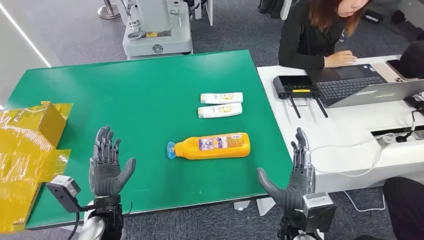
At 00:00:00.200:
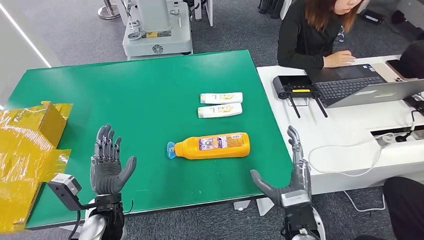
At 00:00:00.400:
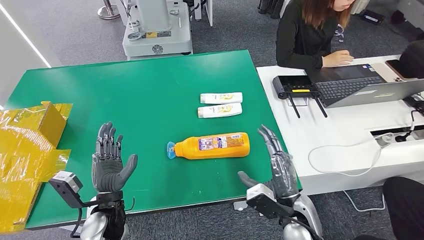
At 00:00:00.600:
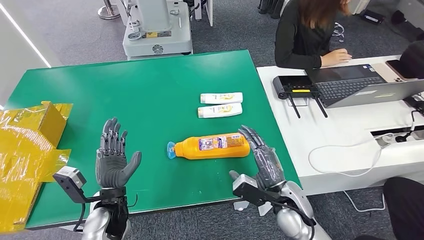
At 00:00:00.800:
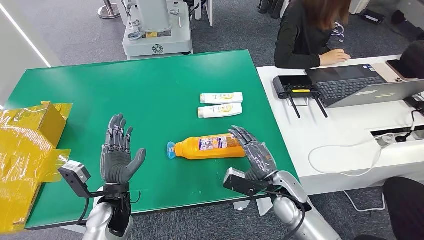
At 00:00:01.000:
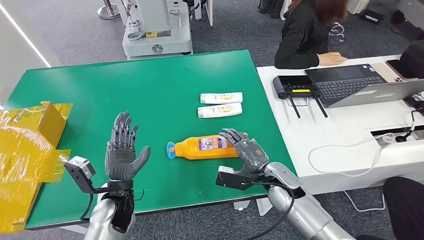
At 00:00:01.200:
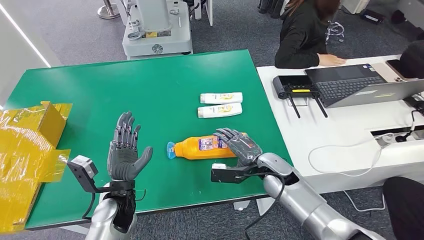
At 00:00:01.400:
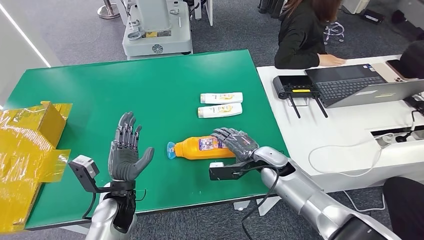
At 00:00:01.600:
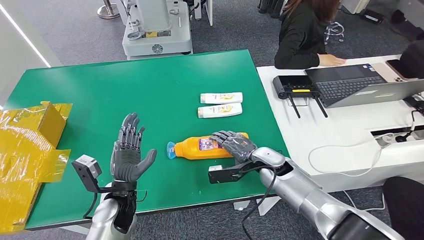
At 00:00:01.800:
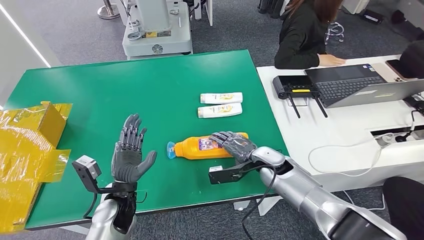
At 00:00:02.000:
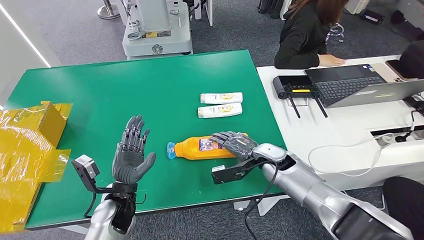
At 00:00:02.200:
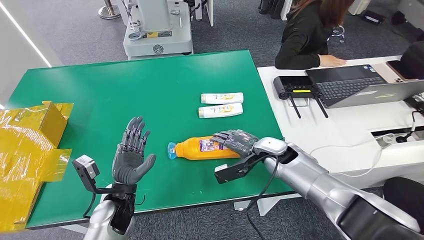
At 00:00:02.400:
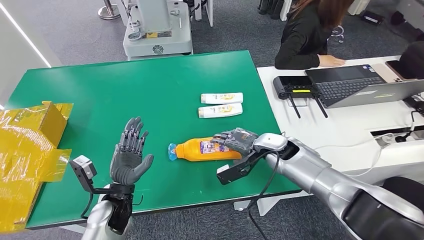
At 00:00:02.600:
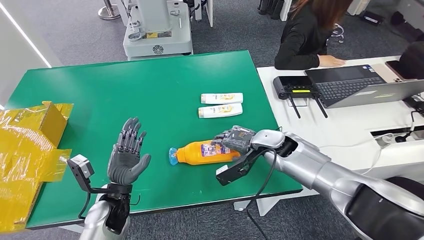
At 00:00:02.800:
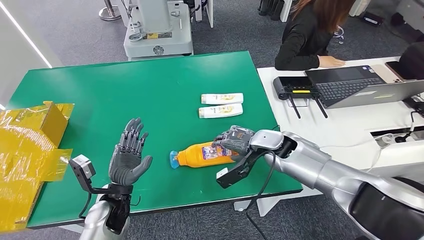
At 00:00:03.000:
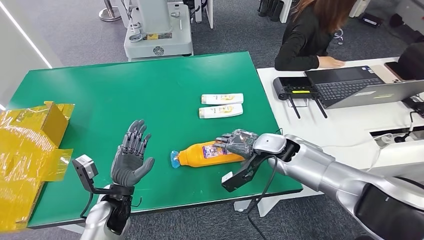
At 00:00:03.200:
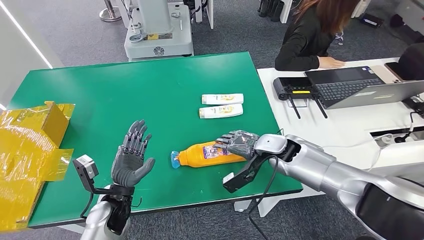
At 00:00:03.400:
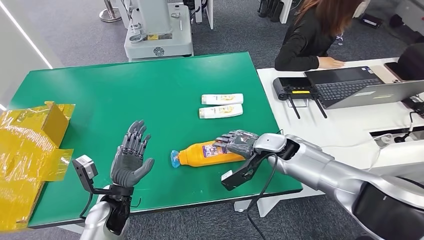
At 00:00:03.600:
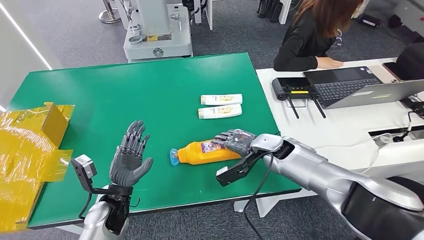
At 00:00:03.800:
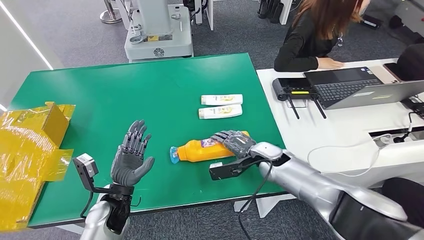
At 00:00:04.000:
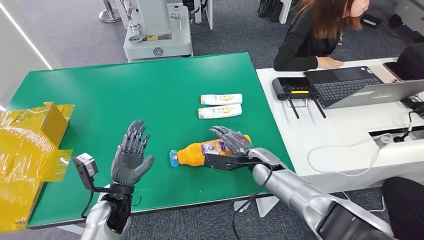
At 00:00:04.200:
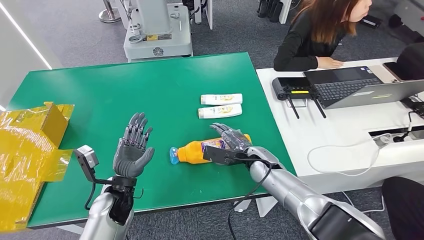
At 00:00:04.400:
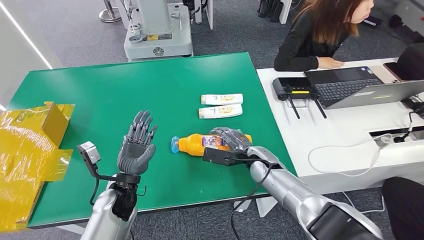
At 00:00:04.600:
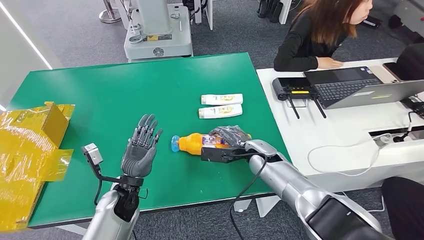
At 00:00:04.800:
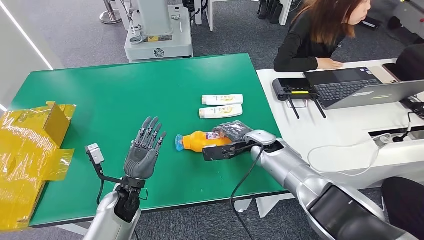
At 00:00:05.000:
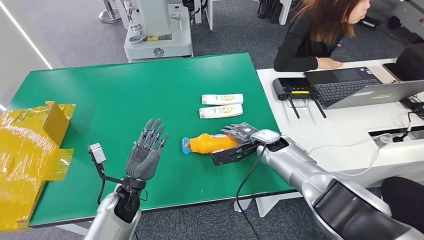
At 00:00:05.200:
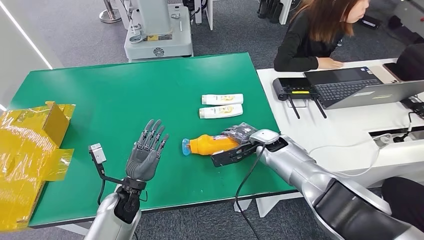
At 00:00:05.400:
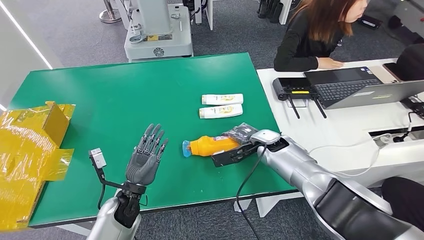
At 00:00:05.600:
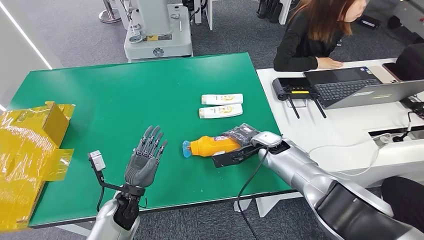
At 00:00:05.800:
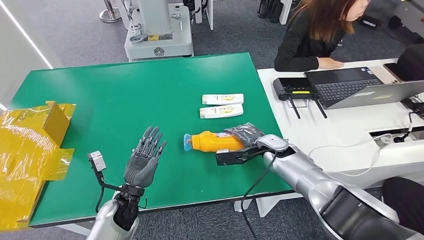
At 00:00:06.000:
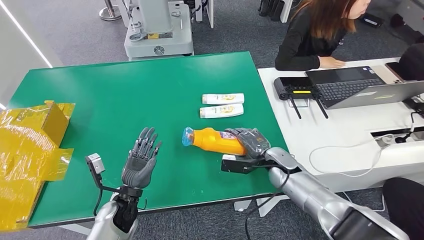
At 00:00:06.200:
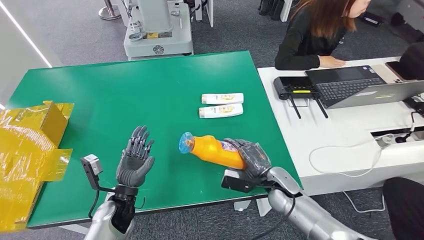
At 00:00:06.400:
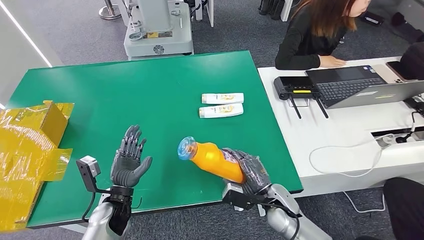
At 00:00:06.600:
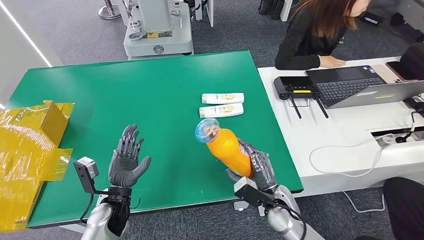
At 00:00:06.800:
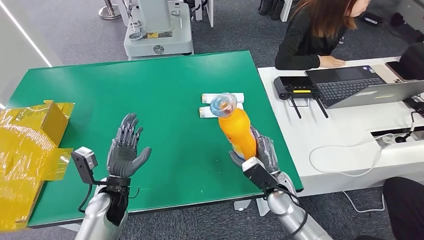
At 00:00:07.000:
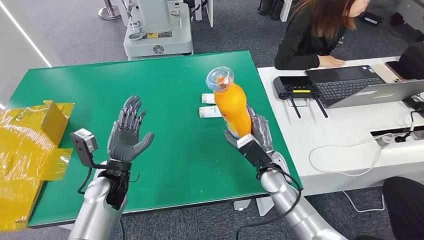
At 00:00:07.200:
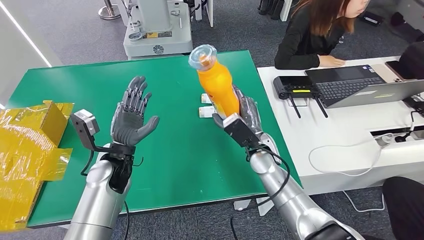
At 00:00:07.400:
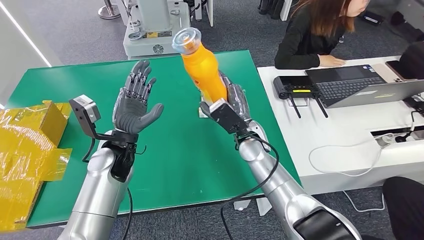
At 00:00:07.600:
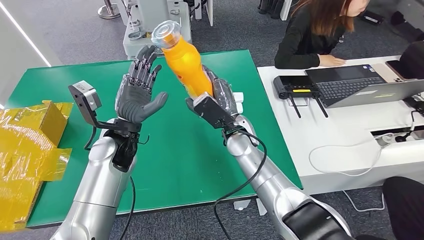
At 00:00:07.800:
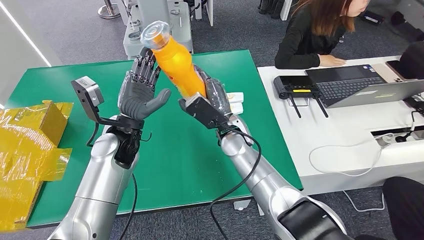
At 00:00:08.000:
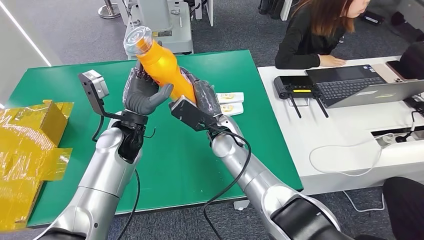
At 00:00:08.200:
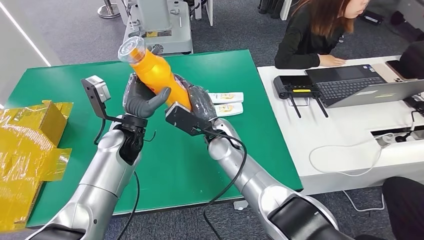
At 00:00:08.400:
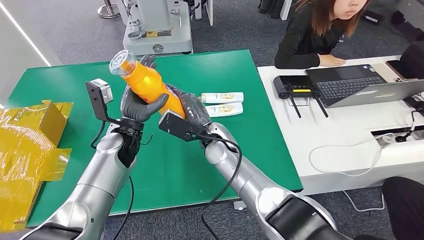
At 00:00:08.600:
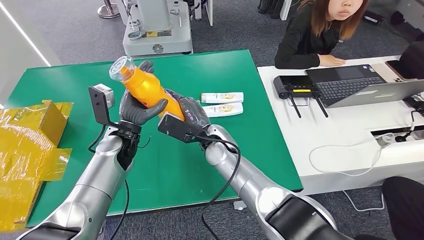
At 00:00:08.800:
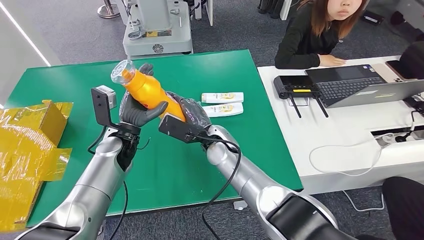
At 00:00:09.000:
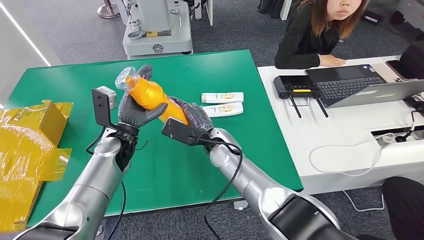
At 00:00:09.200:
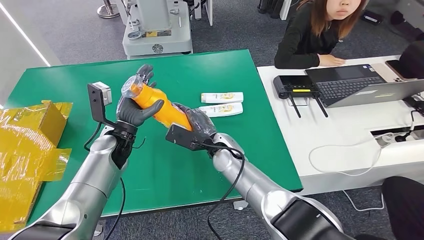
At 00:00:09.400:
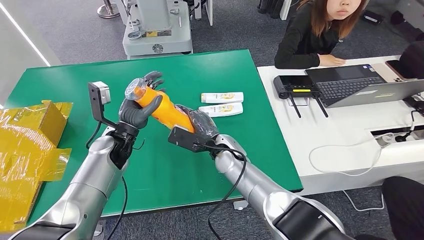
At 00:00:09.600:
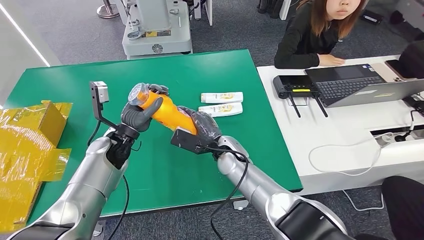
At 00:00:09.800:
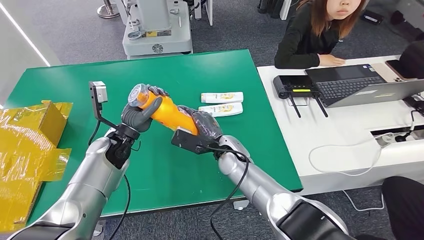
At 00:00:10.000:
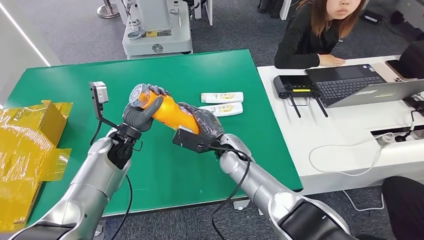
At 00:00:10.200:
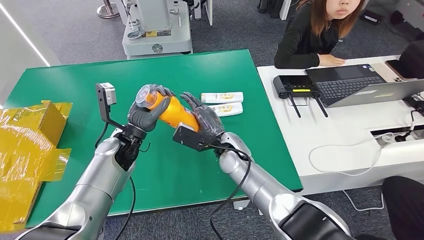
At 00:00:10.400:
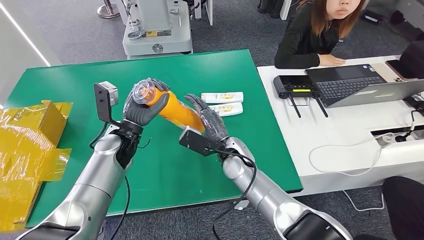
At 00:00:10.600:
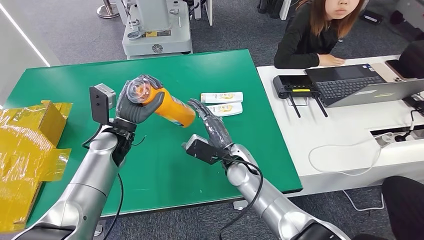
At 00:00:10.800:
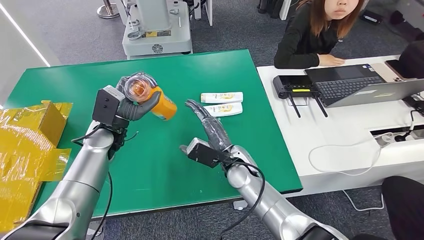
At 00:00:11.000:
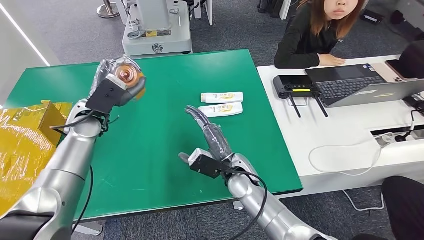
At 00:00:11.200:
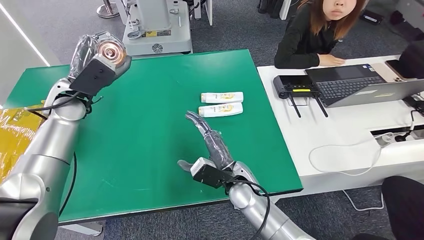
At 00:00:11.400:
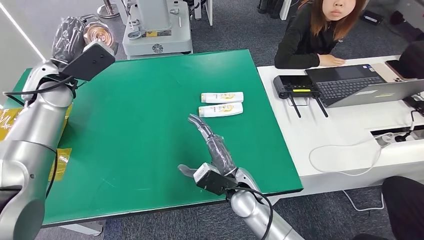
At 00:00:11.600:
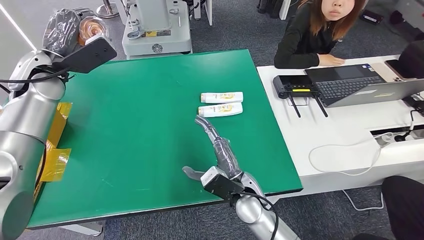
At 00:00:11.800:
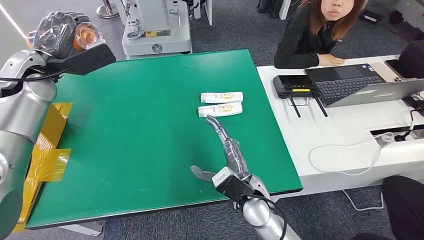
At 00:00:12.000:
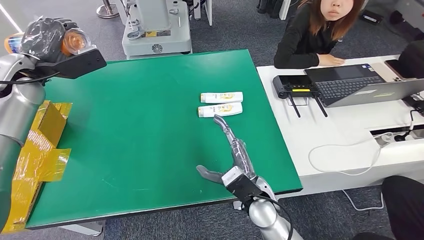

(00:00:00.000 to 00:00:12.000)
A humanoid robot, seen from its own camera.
Step, 00:00:00.000 - 00:00:06.400: Pick up the bottle from the table.
00:00:03.000 - 00:00:04.400: The right hand goes about 10 cm downward and to the left.
00:00:04.400 - 00:00:06.000: The right hand heads to the right, covering about 5 cm.

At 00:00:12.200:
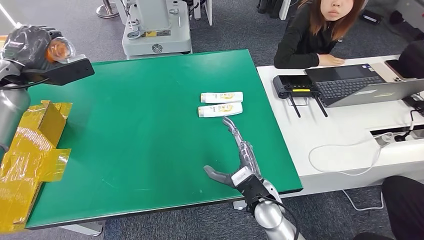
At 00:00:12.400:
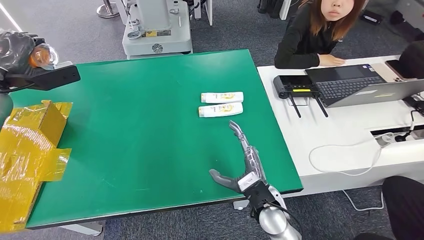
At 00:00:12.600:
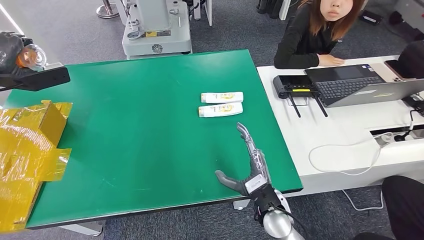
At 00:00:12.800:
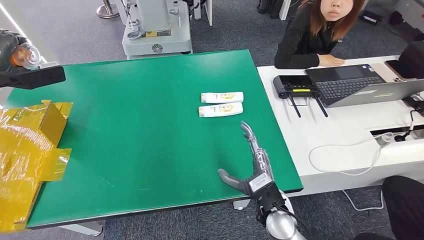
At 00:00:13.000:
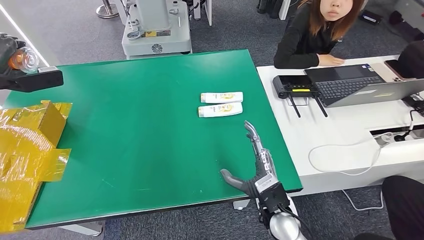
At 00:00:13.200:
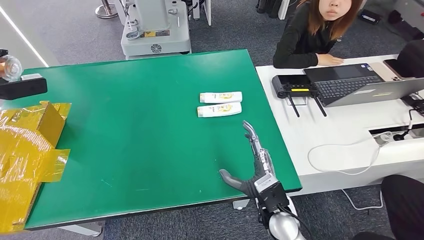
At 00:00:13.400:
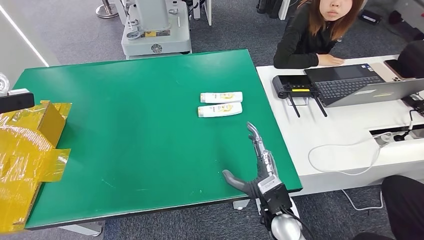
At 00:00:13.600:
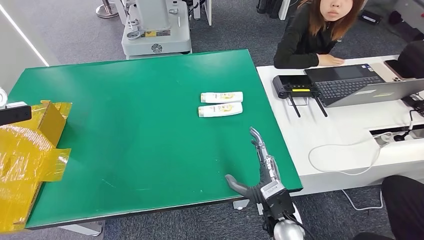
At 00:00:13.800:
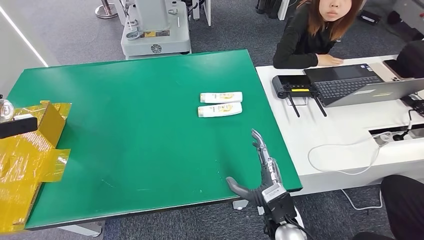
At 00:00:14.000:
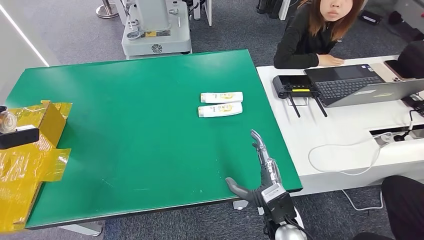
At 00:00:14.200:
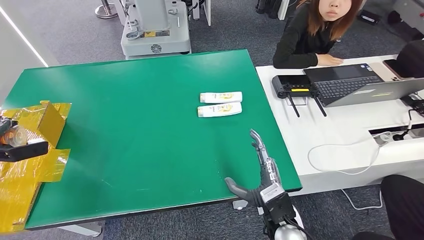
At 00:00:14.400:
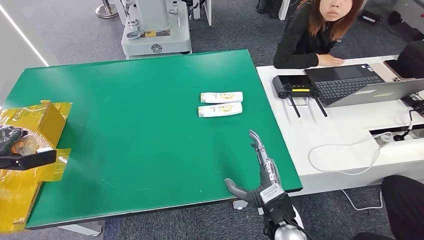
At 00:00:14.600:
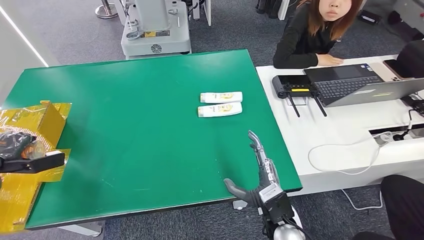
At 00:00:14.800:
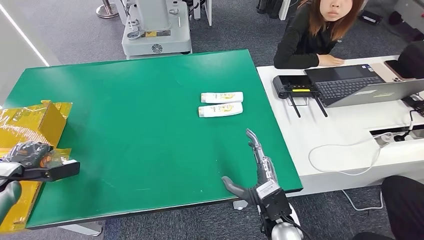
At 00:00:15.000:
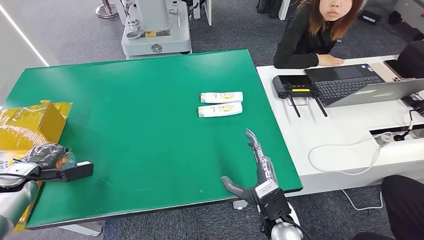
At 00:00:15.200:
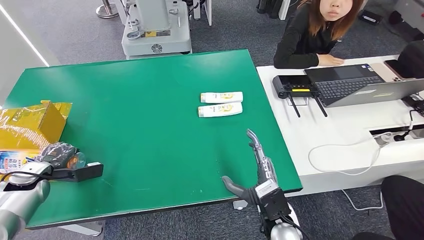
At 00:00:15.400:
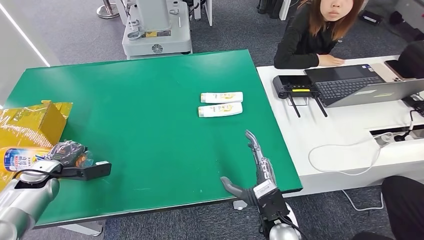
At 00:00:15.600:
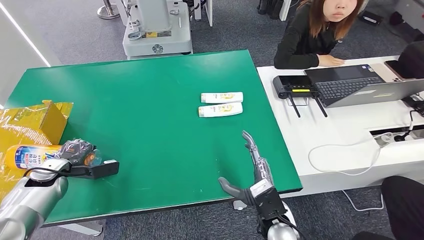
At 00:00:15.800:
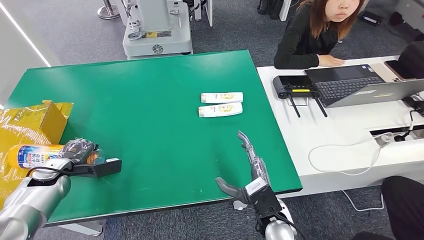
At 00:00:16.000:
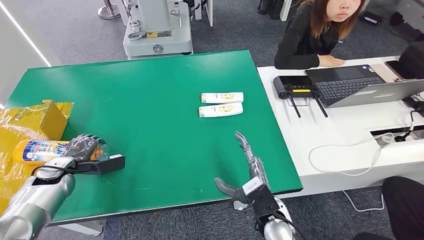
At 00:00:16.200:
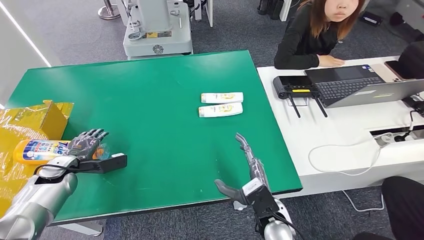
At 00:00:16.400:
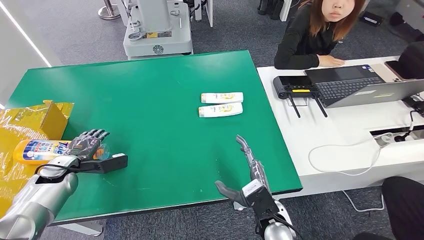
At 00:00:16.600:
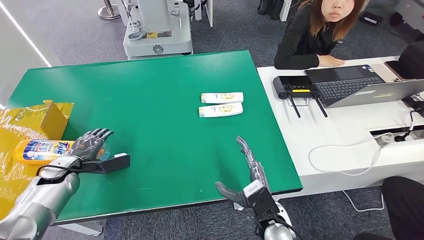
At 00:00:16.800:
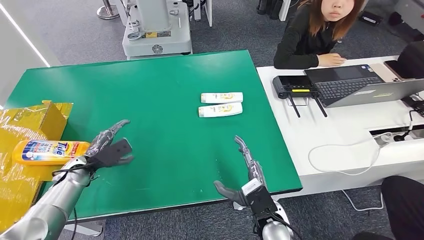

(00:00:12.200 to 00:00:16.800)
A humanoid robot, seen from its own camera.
Step, 00:00:12.200 - 00:00:16.800: Turn the bottle to the front side.
00:00:12.200 - 00:00:13.800: The left hand moves to the left, some 20 cm; the right hand goes roughly 5 cm backward.
00:00:13.800 - 00:00:15.200: The left hand is displaced downward and to the right by roughly 20 cm.
00:00:15.200 - 00:00:16.800: The left hand shifts roughly 10 cm to the right.
